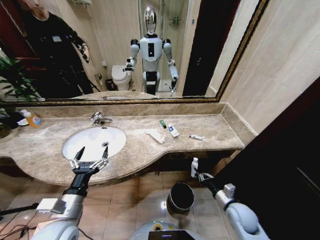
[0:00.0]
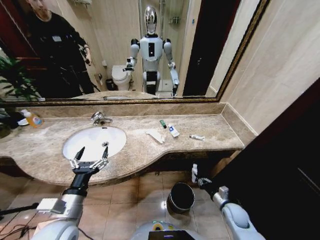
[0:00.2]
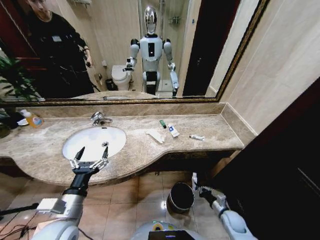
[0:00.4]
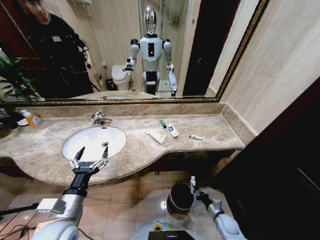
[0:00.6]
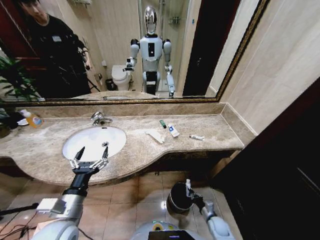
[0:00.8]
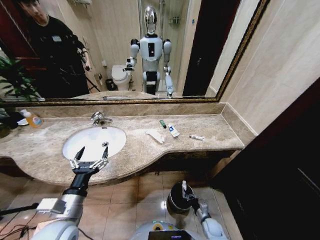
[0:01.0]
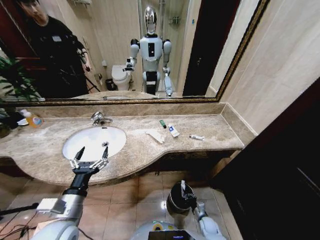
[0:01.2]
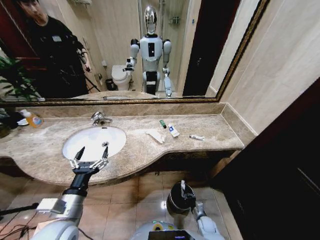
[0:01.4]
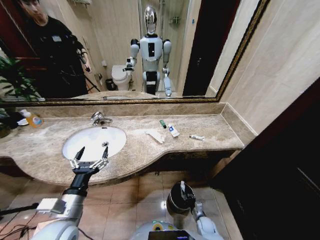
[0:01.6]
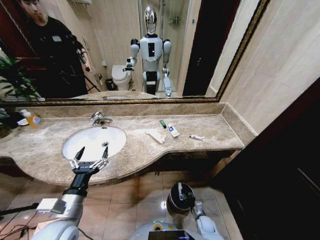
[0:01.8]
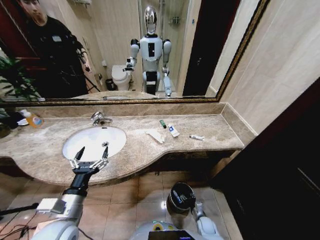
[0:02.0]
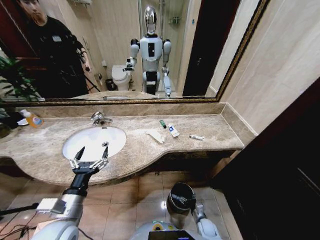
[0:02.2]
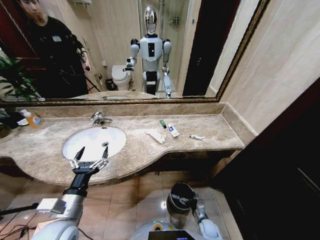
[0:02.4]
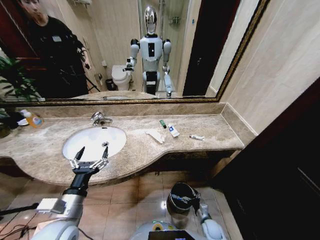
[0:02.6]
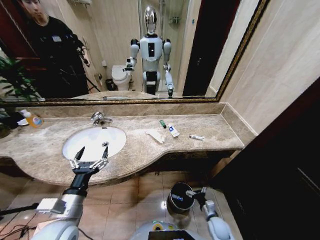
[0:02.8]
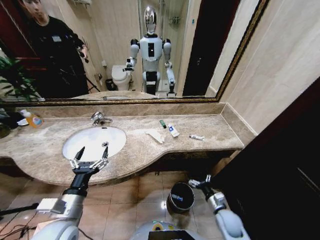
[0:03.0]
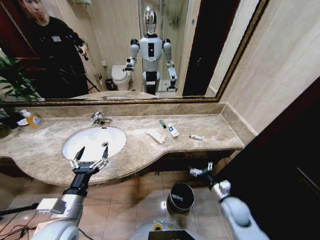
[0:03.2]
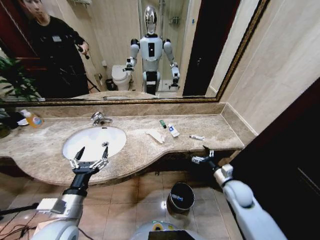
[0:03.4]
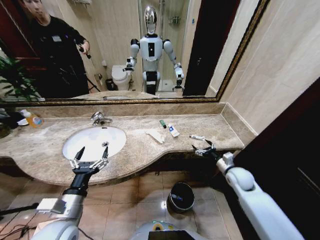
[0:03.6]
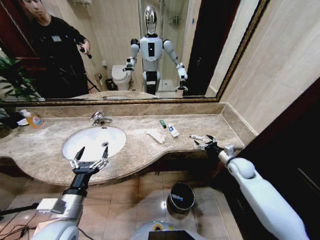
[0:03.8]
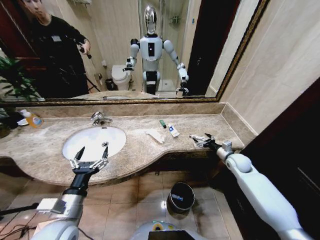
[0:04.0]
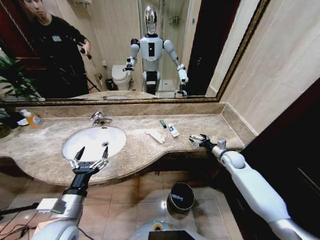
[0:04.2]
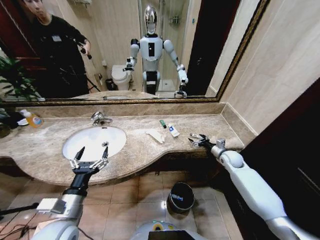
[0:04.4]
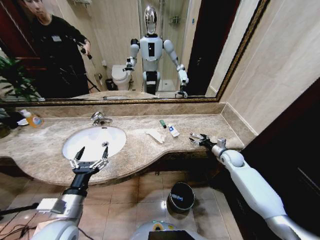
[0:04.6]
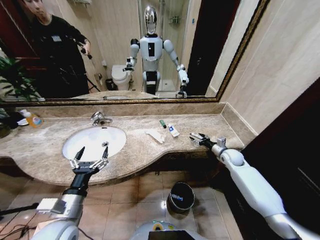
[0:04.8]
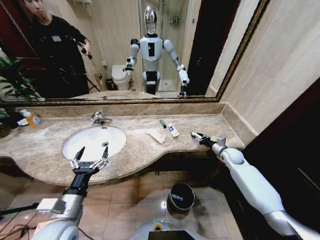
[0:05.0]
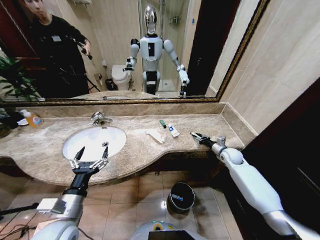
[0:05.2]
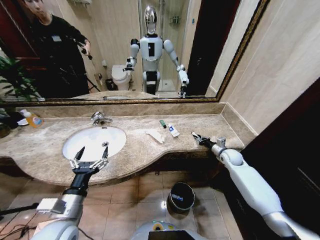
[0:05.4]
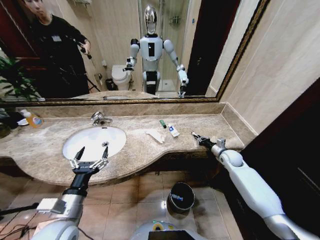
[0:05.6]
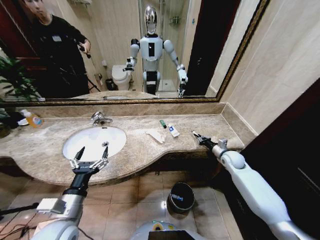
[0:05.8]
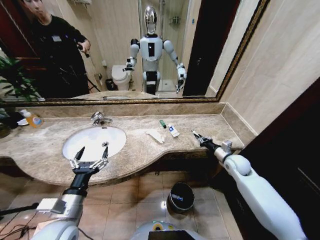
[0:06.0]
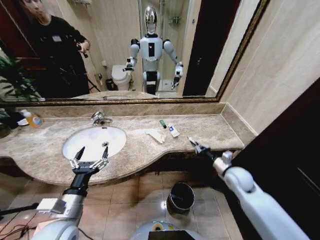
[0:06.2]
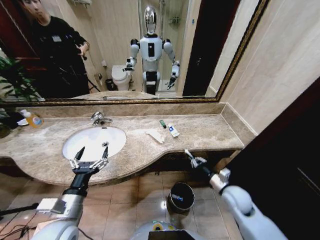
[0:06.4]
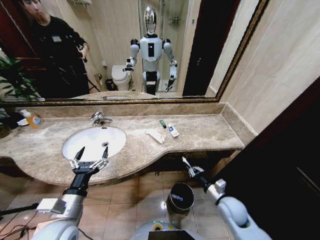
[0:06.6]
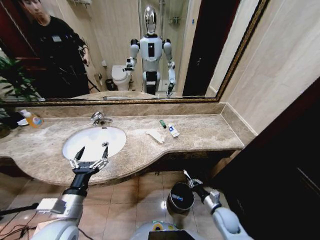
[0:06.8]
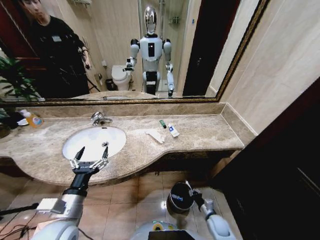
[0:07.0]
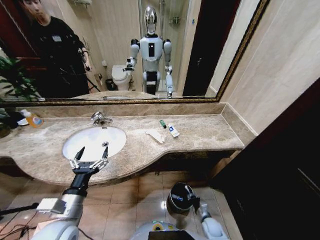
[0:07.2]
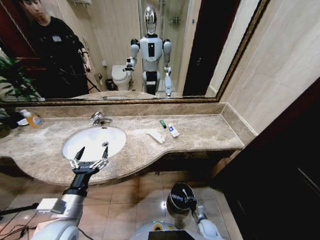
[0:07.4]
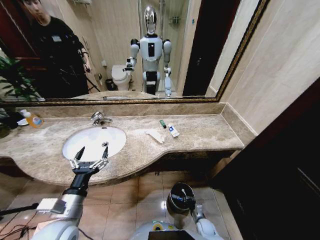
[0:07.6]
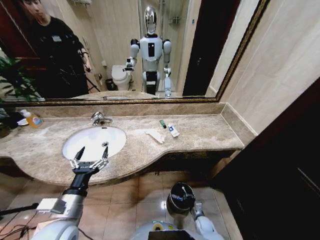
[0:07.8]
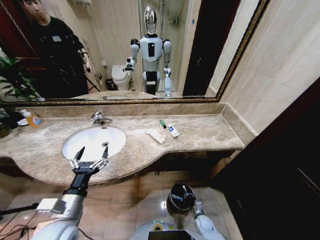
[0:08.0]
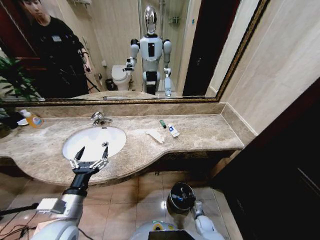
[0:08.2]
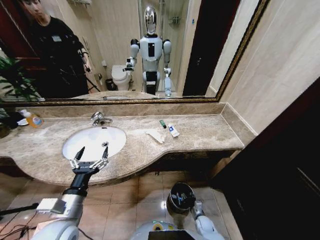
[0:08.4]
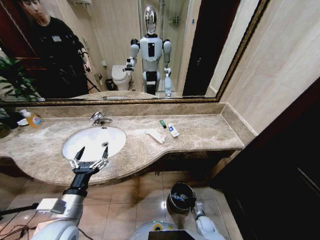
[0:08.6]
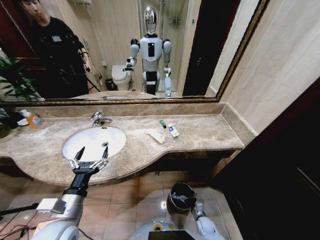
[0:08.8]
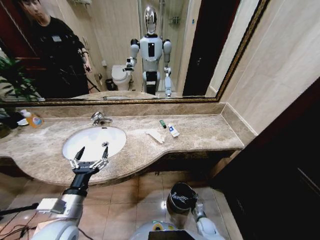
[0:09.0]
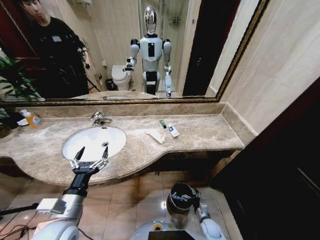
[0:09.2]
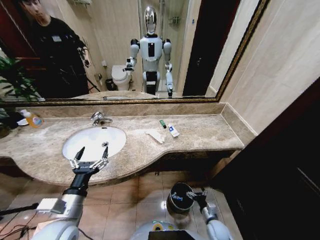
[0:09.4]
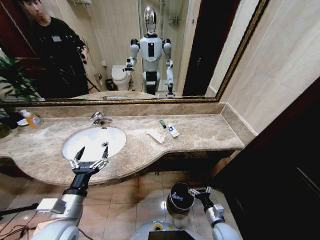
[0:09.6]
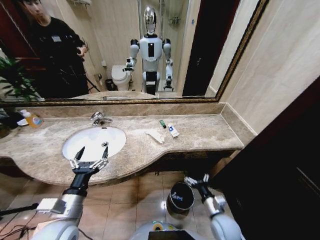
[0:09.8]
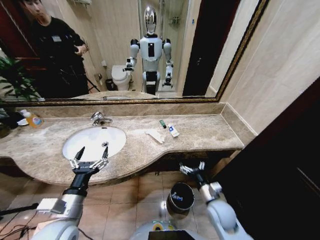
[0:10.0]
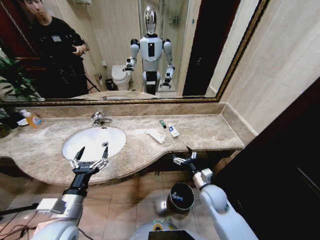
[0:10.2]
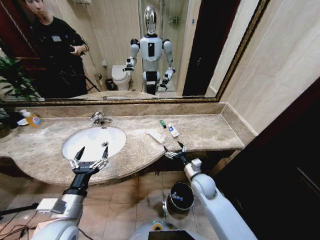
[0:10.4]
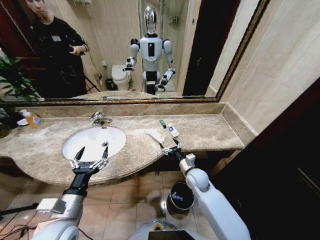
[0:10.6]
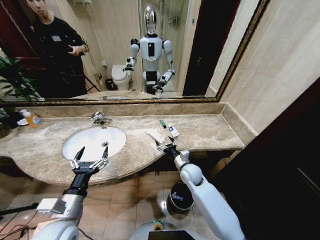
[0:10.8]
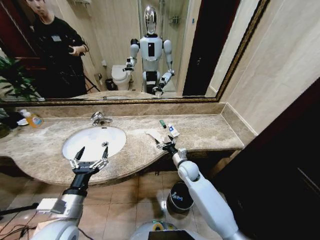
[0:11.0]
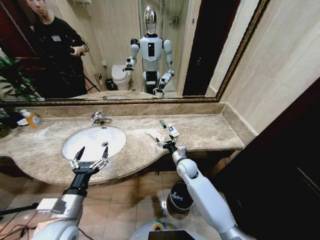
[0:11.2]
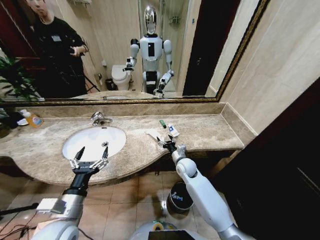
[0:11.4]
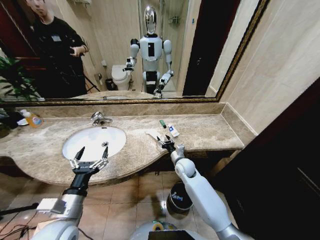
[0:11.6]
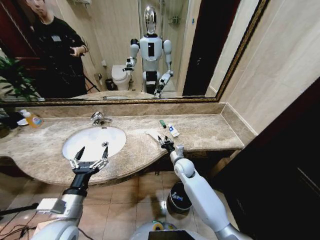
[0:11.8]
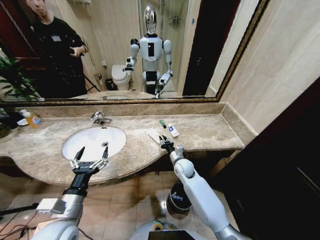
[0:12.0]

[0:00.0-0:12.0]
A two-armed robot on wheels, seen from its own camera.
Task of the whole recording: Pick up the trash from the sink and place it in the trash bin.
0:00.0 to 0:01.6: The right gripper travels downward by approximately 25 cm.
0:01.6 to 0:03.0: The right gripper is displaced upward by roughly 20 cm, and opens.
0:03.0 to 0:04.4: The right gripper is displaced forward and upward by approximately 25 cm.
0:04.4 to 0:06.0: The right gripper ends up approximately 5 cm from where it was, and closes its fingers.
0:06.0 to 0:07.6: The right gripper is displaced downward and backward by approximately 40 cm.
0:09.0 to 0:10.4: The right gripper heads upward, covering about 30 cm.
0:10.4 to 0:12.0: The right gripper travels forward and to the left by approximately 10 cm, and closes up.

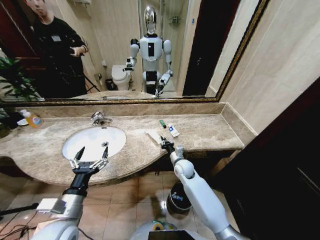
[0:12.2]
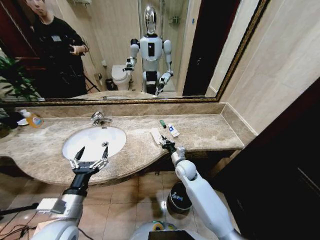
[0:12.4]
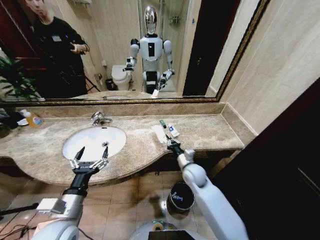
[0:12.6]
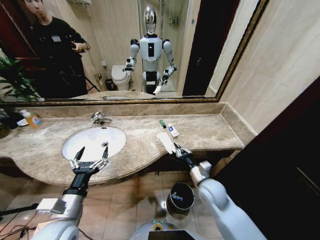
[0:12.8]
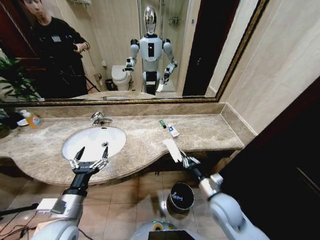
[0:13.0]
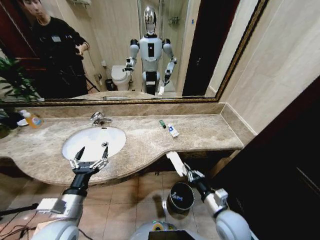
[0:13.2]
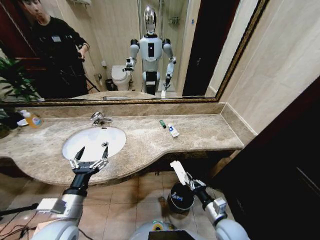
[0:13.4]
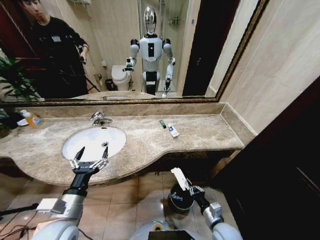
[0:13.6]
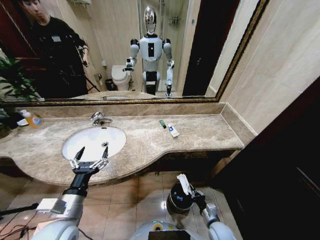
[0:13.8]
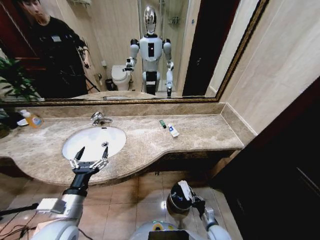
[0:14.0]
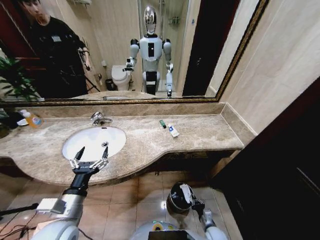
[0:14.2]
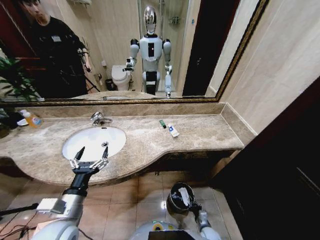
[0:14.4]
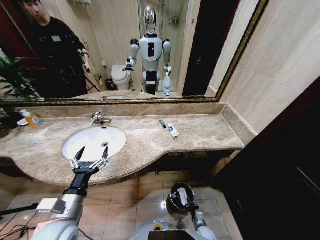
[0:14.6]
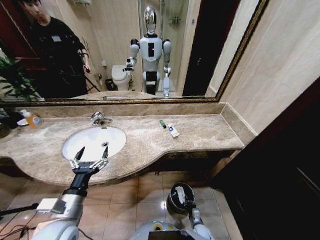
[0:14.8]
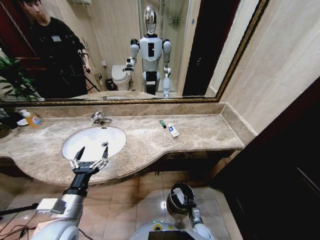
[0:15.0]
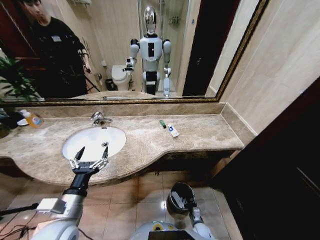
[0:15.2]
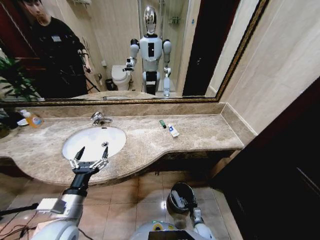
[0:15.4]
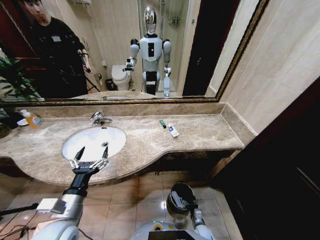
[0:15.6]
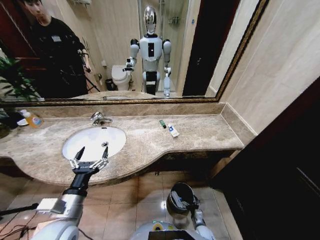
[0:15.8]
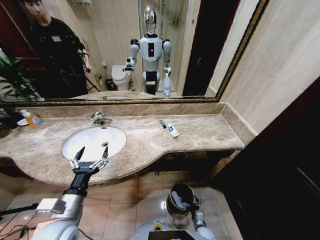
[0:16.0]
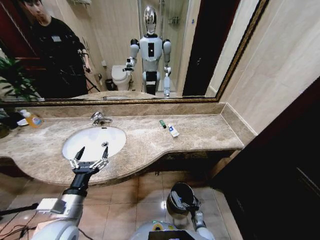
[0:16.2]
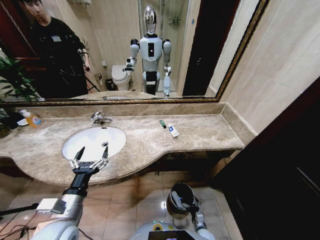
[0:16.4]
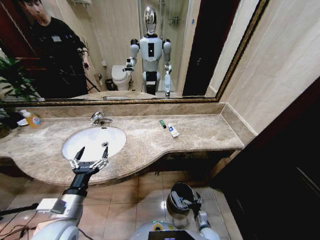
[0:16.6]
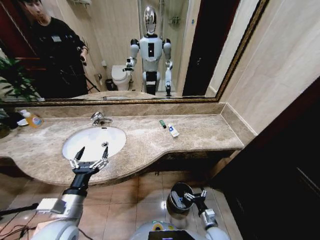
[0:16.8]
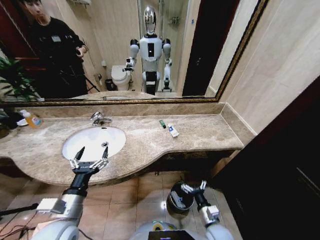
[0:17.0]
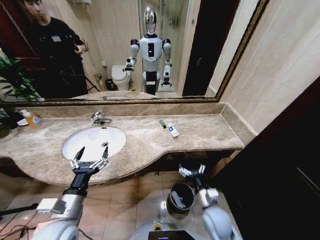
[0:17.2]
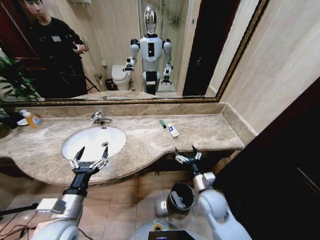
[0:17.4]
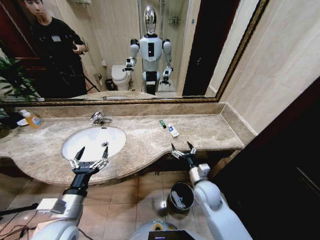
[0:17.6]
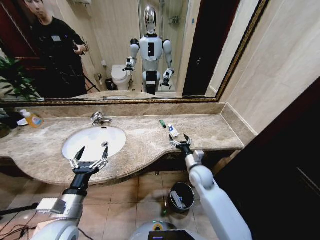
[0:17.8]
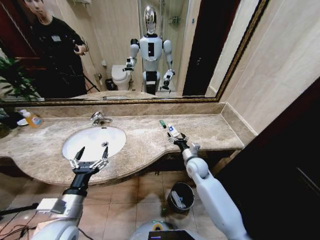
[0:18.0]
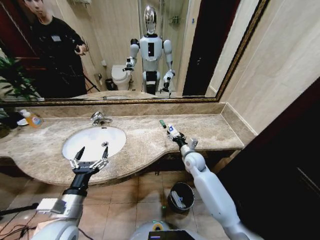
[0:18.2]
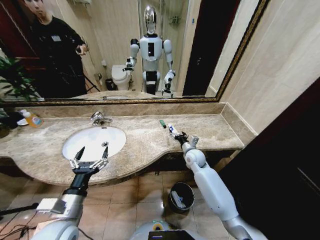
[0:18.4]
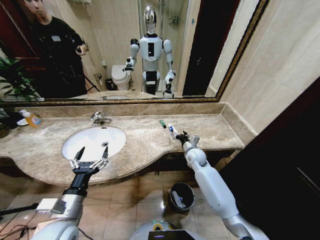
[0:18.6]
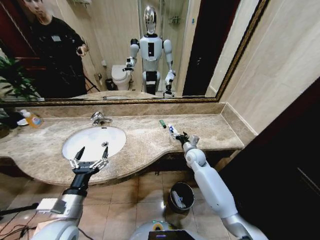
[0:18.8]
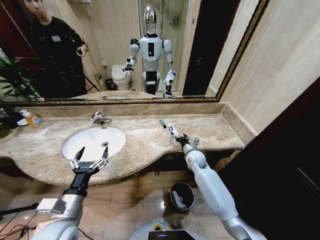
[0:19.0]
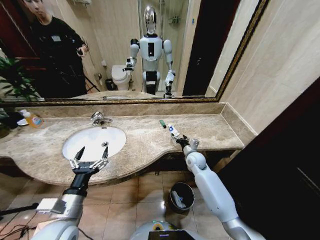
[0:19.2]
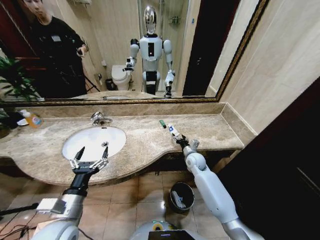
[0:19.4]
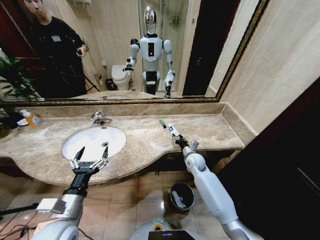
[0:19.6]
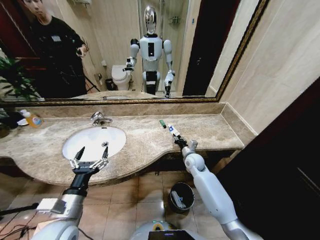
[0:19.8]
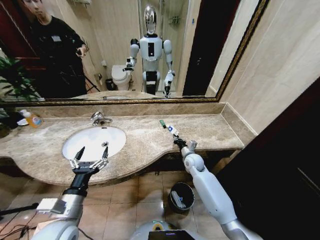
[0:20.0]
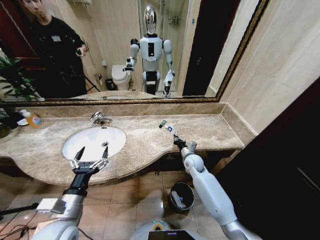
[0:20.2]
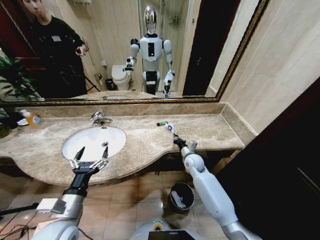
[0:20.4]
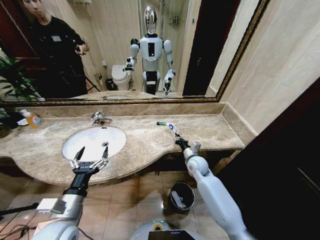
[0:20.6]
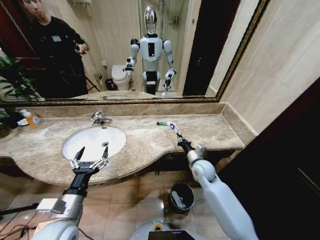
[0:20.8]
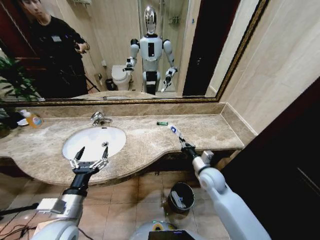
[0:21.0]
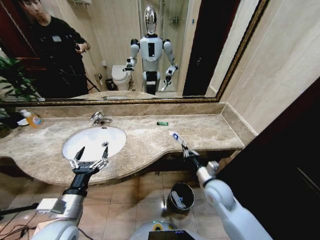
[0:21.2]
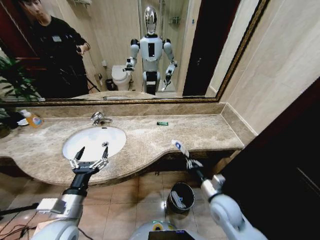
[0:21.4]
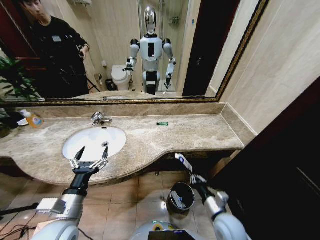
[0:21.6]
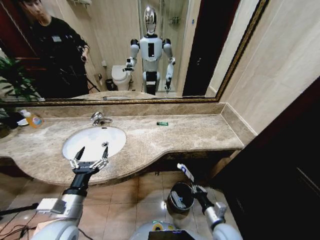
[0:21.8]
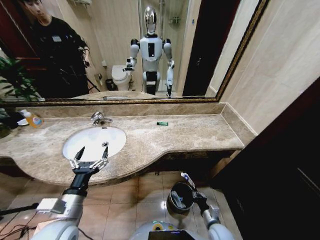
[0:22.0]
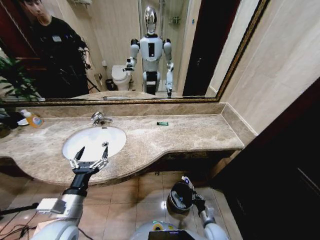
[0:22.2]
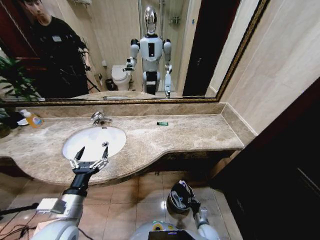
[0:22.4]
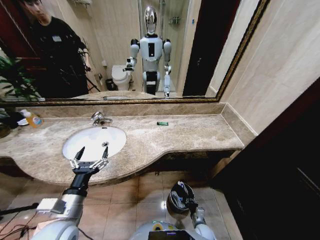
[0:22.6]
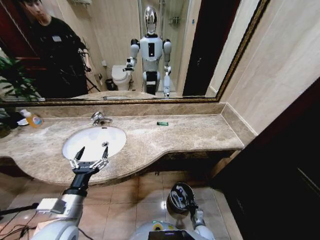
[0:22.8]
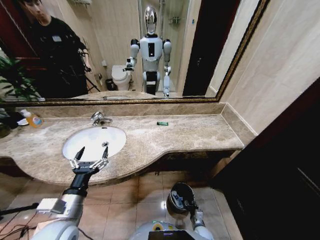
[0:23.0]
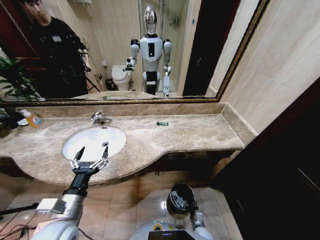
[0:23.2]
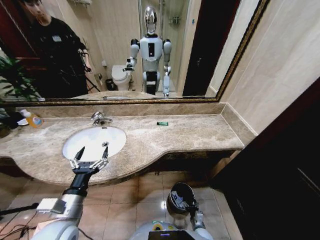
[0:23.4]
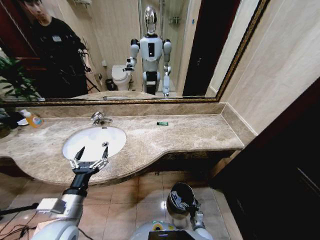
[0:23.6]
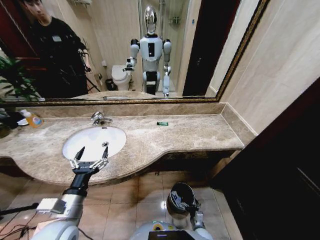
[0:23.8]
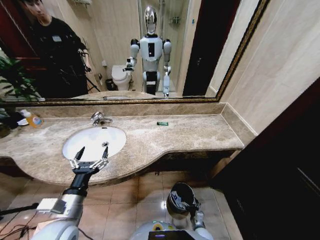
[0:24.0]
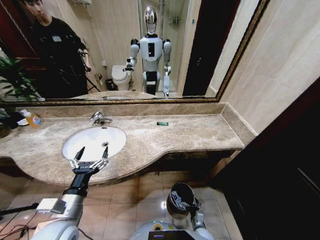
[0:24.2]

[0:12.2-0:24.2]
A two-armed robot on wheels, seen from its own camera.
Task of the whole recording: Pick up the trash from the sink and place it in the trash bin.
0:12.2 to 0:13.8: The right gripper travels backward, downward and to the right by roughly 30 cm.
0:13.8 to 0:15.2: The right gripper is displaced downward by roughly 15 cm.
0:15.2 to 0:16.6: The right gripper shifts about 5 cm upward, and opens its fingers.
0:16.6 to 0:18.2: The right gripper goes about 40 cm upward and forward.
0:18.2 to 0:19.8: The right gripper closes up.
0:19.8 to 0:21.2: The right gripper goes roughly 15 cm backward, and closes its fingers.
0:21.2 to 0:22.6: The right gripper travels downward by about 30 cm.
0:22.6 to 0:24.2: The right gripper opens its fingers.
